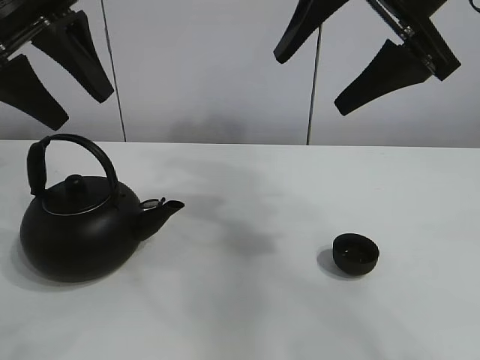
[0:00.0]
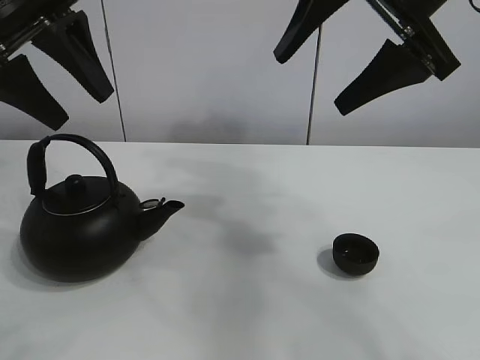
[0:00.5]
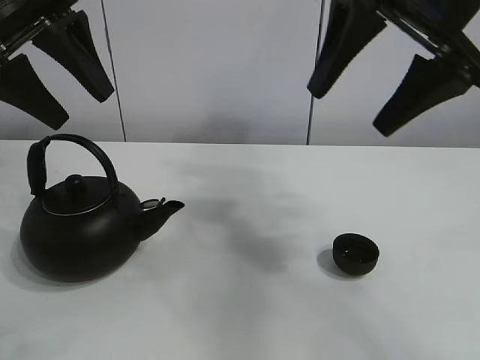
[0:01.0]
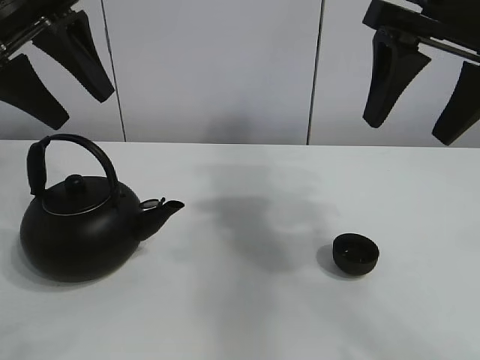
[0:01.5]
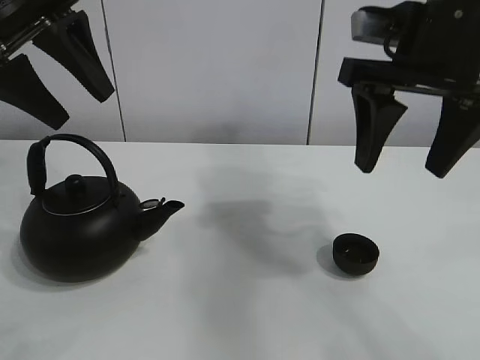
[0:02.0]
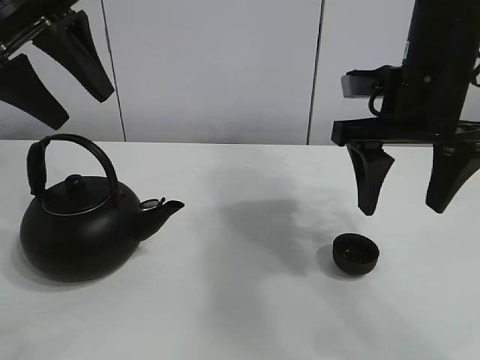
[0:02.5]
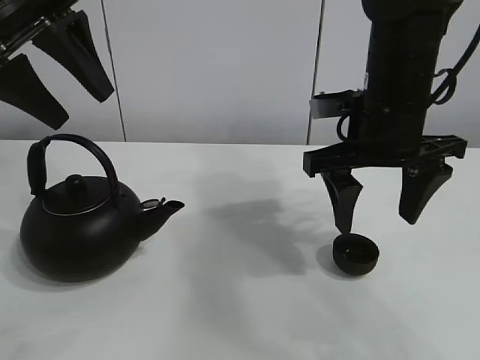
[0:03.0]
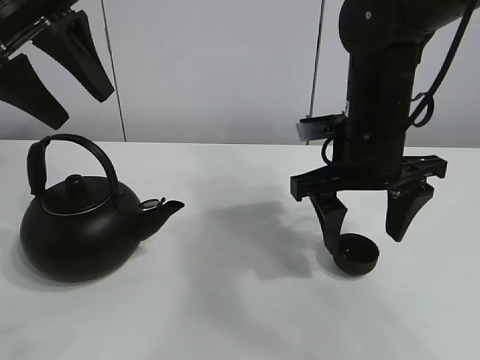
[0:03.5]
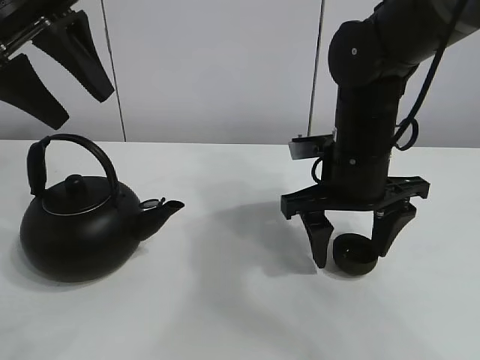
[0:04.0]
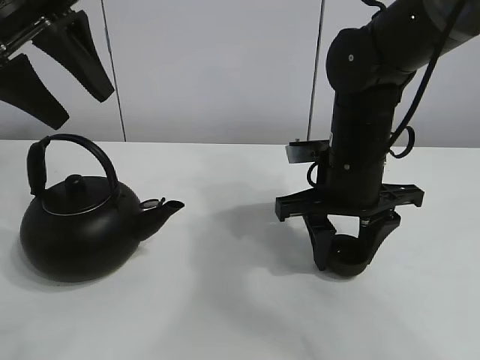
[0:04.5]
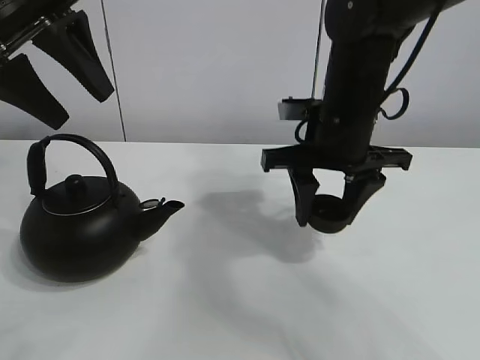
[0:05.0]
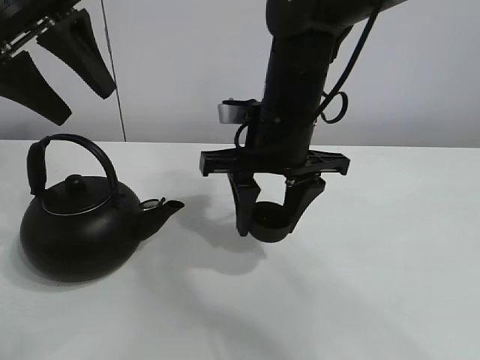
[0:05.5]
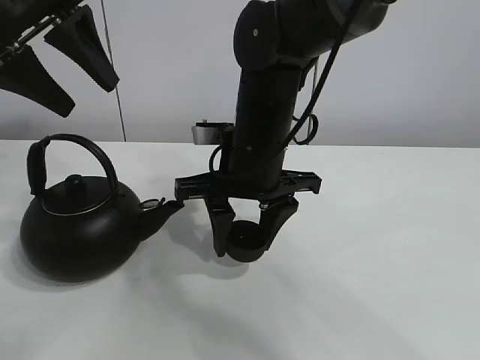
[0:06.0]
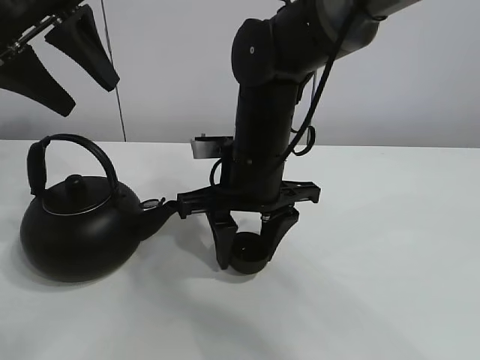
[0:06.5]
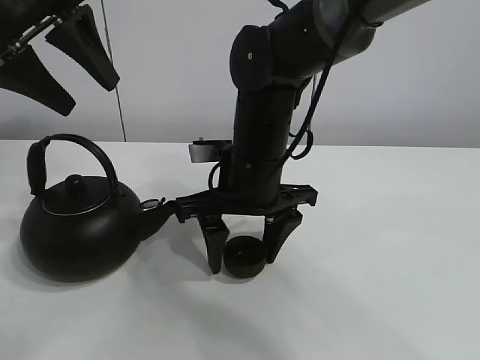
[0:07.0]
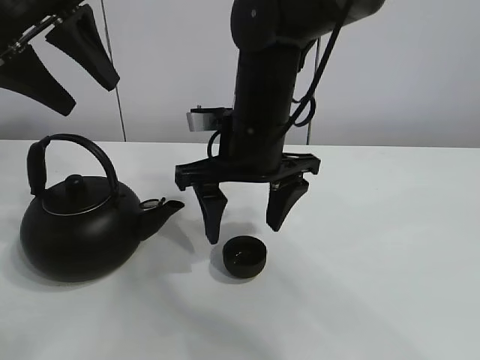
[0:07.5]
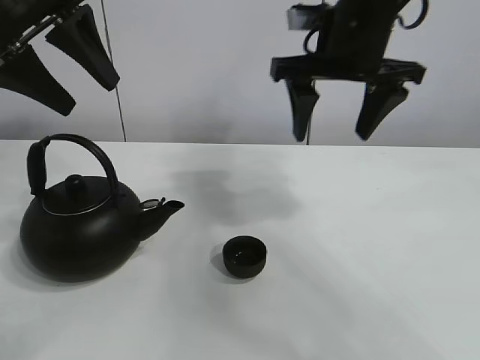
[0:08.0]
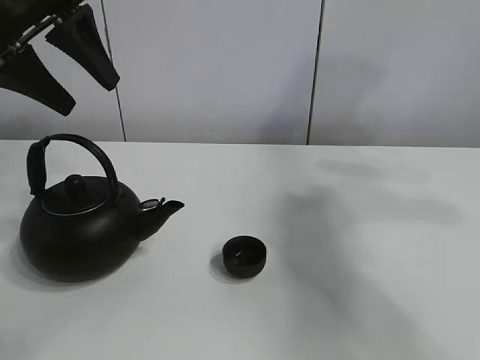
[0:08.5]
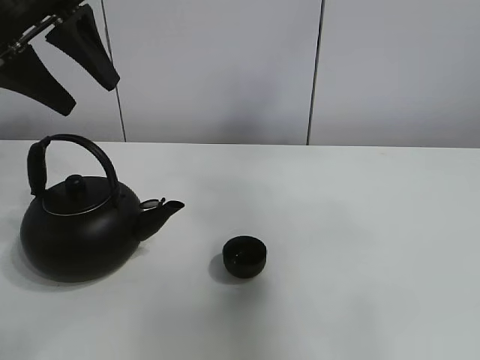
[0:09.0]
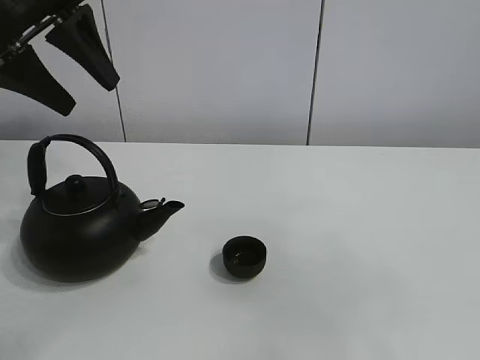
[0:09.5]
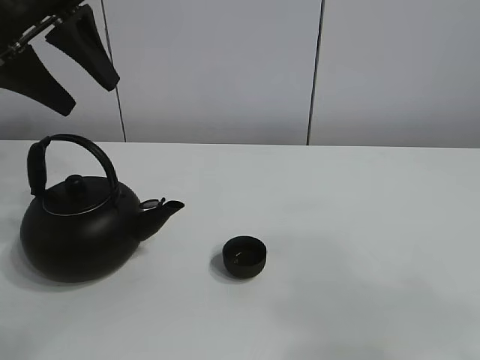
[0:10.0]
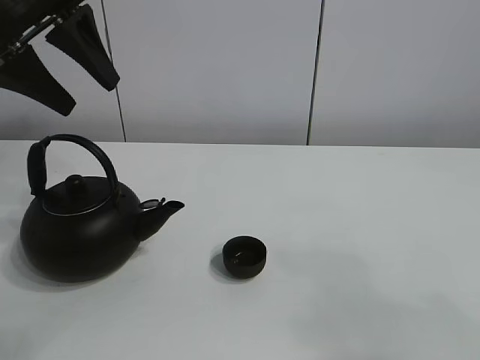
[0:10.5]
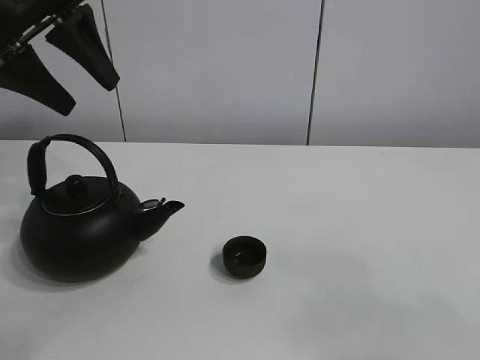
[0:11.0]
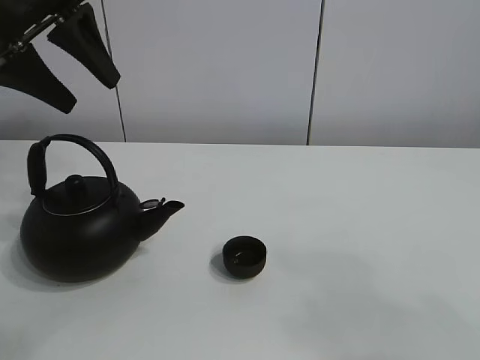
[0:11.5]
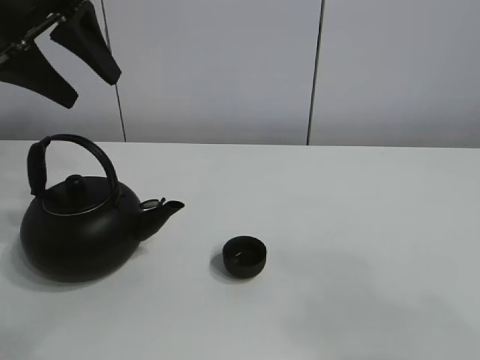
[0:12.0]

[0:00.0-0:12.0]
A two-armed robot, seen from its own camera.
Task of the whole recording: pour tea into the teacup.
Step, 0:00.0 to 0:04.5: Pick up the teacup with the right gripper.
Step, 0:05.0 to 0:06.5: Place the teacup in the center of view with the right gripper.
0:02.0 to 0:04.0: The right gripper goes approximately 15 cm downward.
0:04.0 to 0:06.0: The right gripper goes roughly 10 cm to the left, and closes its fingers.
0:06.0 to 0:08.0: The right gripper is displaced upward and to the right by some 15 cm, and opens.
0:08.0 to 0:10.0: The right gripper is displaced backward by about 40 cm.
0:10.0 to 0:12.0: The grippers move only a little.

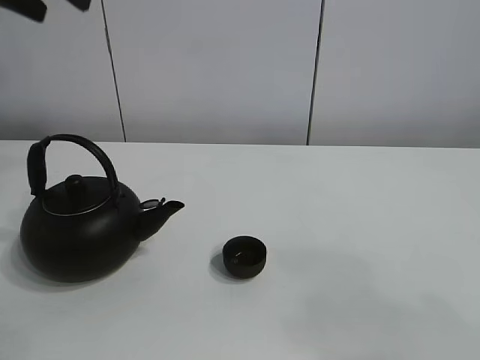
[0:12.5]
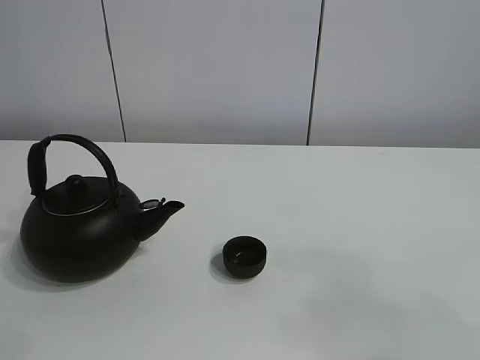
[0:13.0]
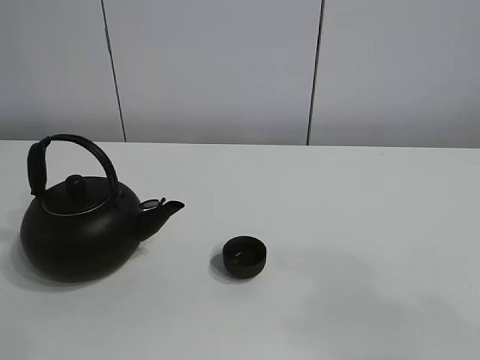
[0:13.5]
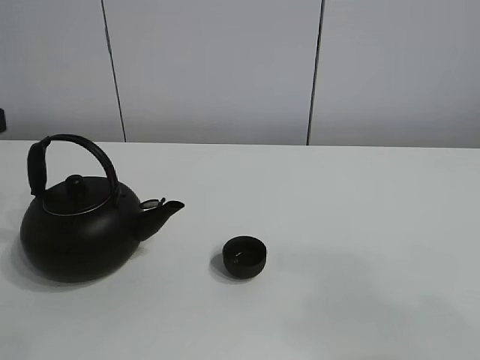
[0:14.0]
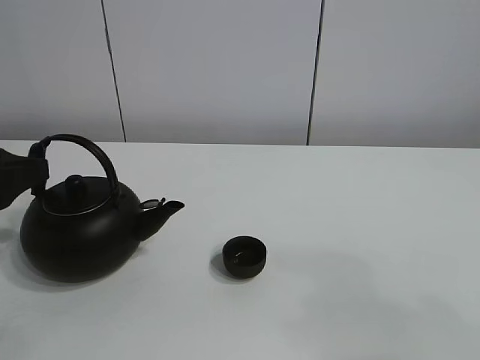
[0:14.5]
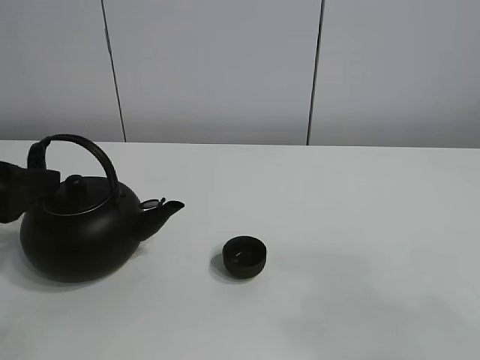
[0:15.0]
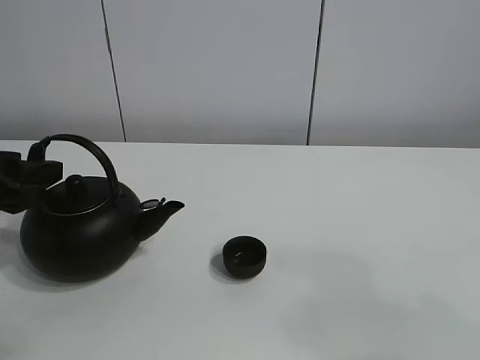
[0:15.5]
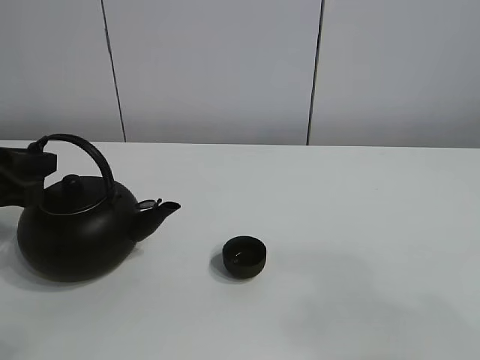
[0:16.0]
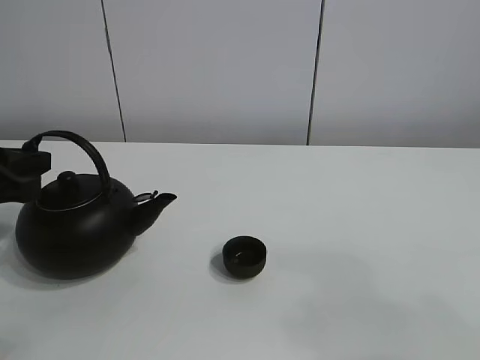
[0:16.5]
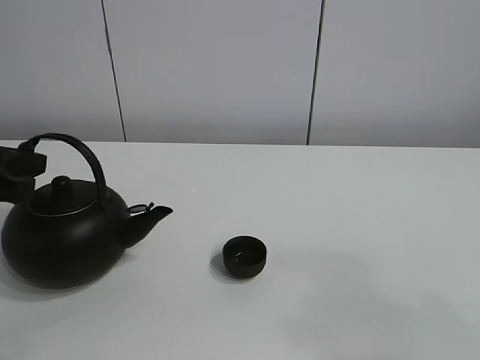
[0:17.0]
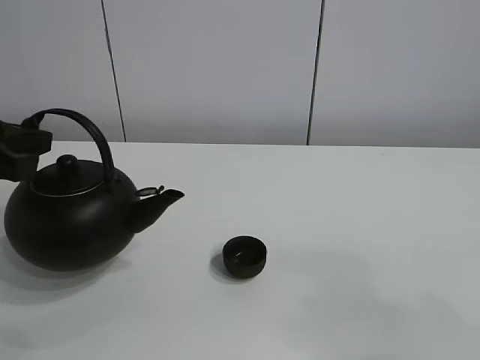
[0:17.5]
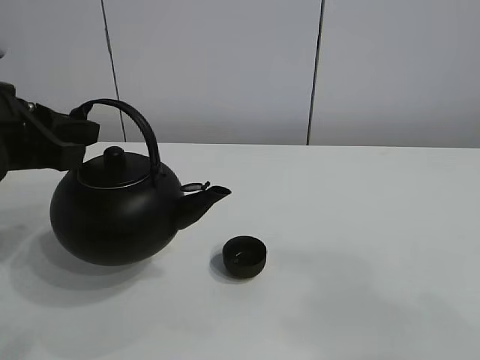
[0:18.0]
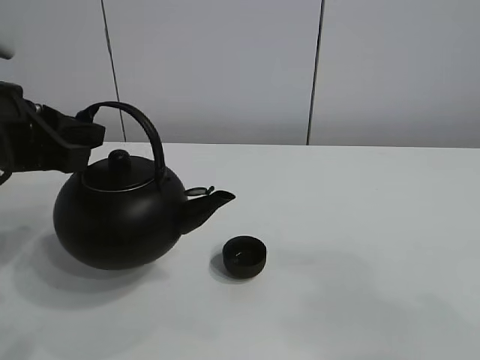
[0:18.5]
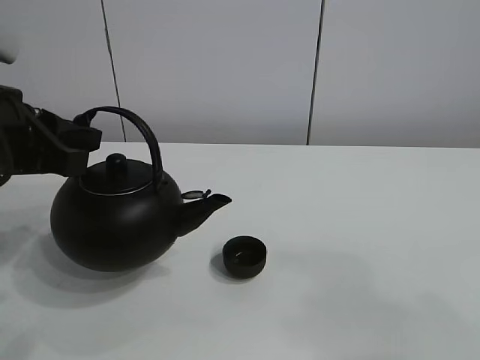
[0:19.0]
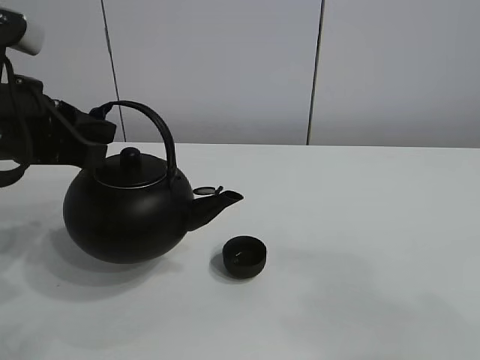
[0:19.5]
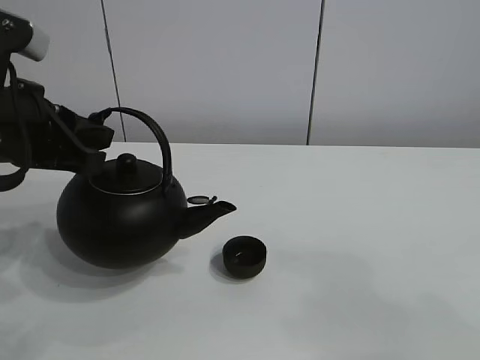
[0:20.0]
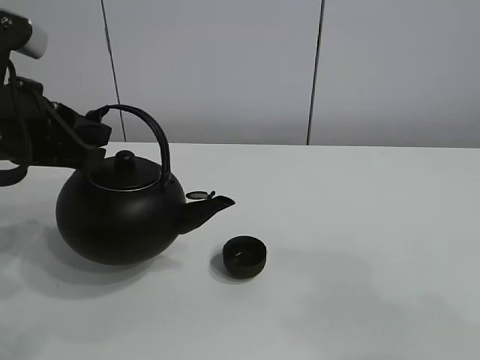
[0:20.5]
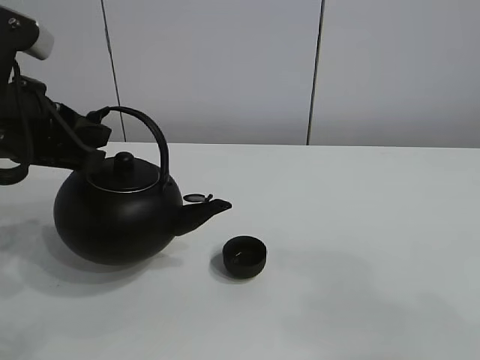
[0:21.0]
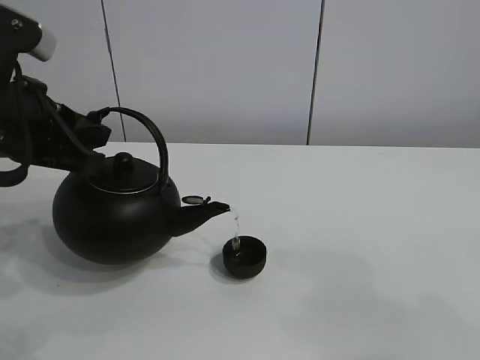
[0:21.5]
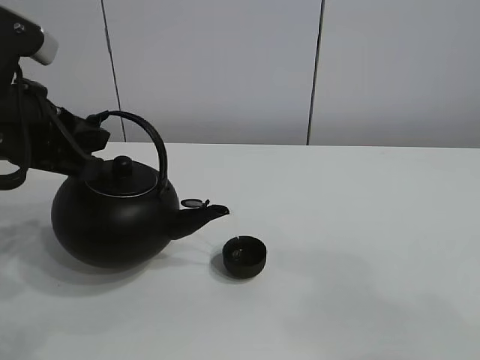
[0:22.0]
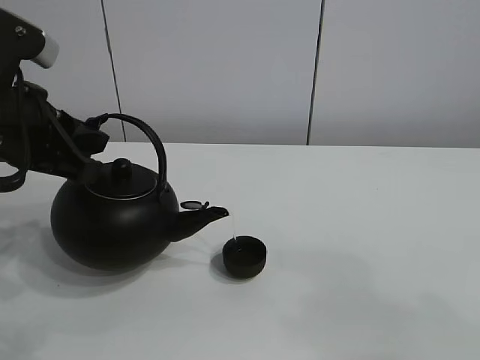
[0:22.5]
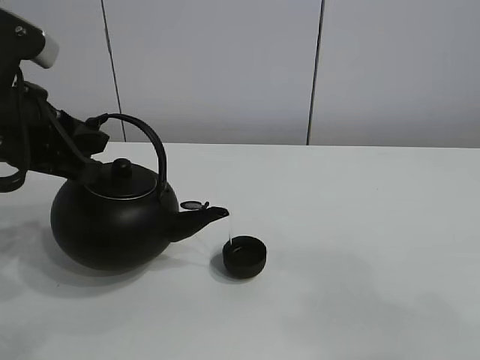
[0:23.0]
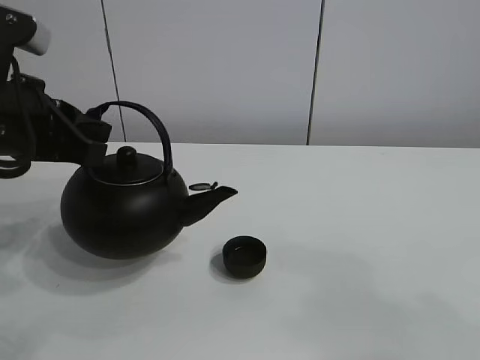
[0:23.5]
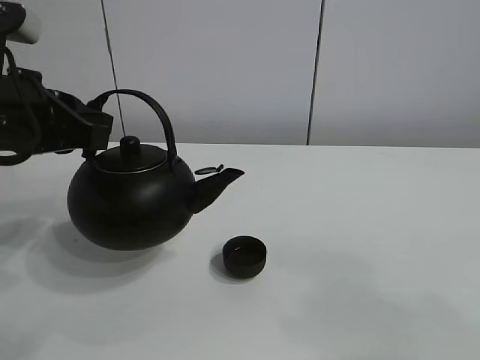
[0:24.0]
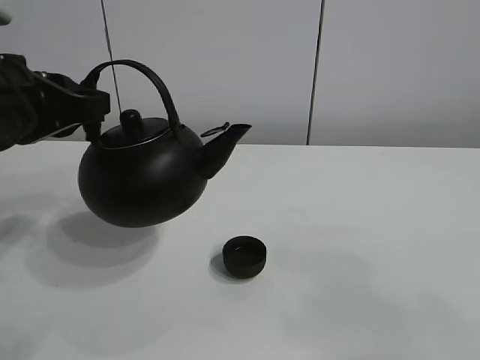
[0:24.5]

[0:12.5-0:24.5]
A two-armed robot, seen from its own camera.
Task of the whole recording: pour tea into the teacup.
Step, 0:12.5 to 0:17.0: Pick up the teapot with the left gripper.
Step, 0:17.5 to 0:23.0: Pour tea into the teacup with the left gripper.
0:12.5 to 0:14.5: The left gripper moves downward and backward, some 25 cm.
0:14.5 to 0:16.5: The left gripper closes.
0:16.5 to 0:18.5: The left gripper is displaced to the right and upward by approximately 10 cm.
0:18.5 to 0:22.5: The grippers move only a little.

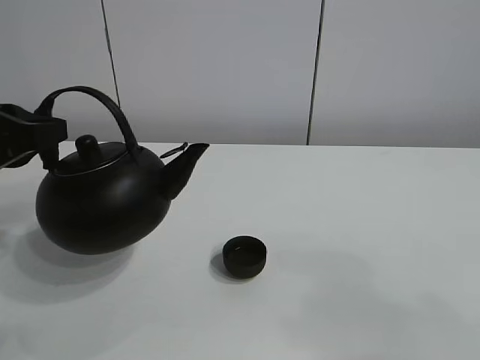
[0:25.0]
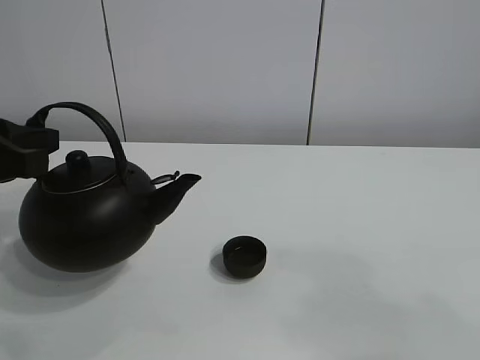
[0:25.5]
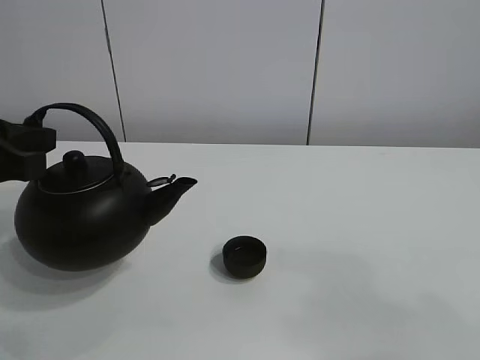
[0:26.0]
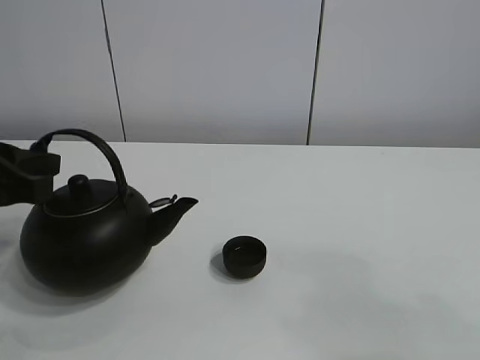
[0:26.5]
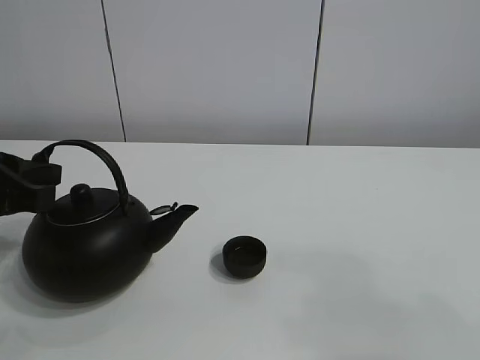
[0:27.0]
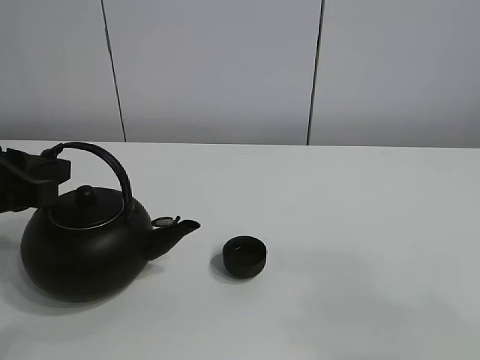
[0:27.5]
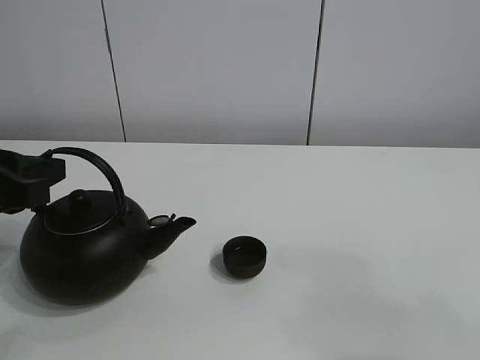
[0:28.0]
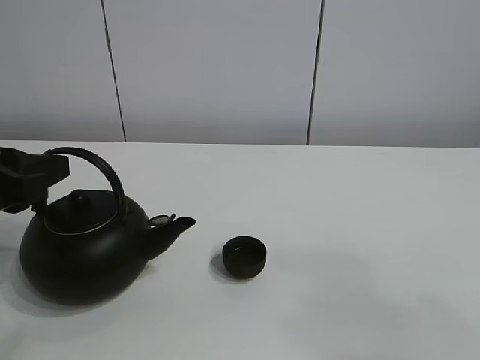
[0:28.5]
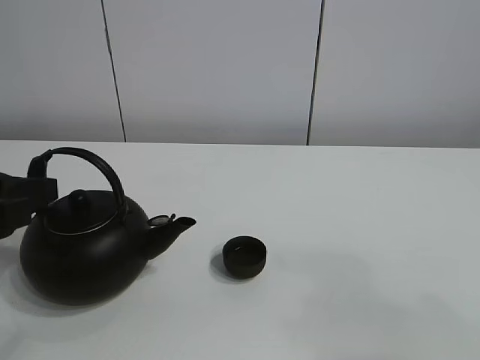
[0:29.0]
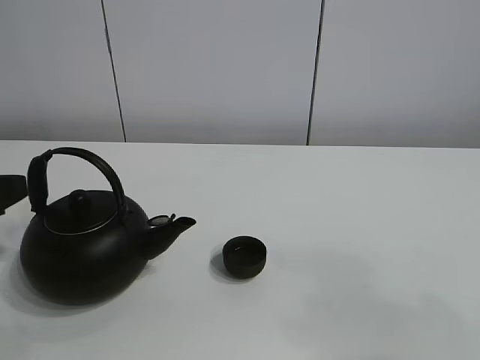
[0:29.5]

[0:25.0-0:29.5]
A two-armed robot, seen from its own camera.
Task of the whole recording: pour tea into the teacup.
0:25.0 to 0:27.0: The grippers make only small movements.
0:27.0 to 0:29.5: The left gripper changes place by about 5 cm, and opens its fingers.
